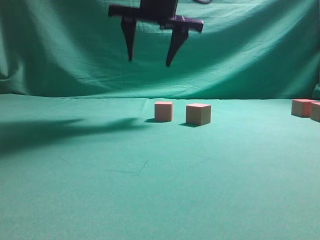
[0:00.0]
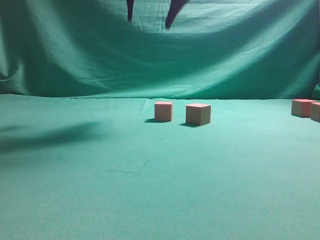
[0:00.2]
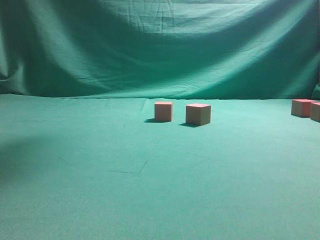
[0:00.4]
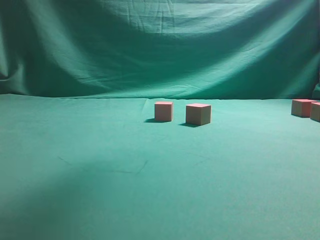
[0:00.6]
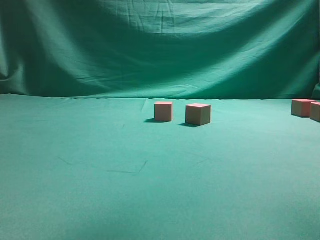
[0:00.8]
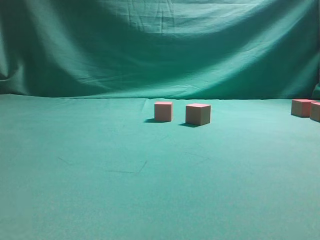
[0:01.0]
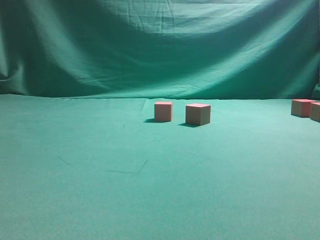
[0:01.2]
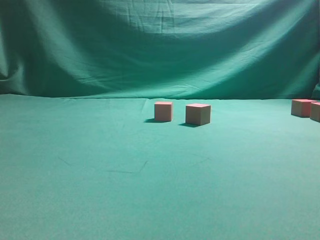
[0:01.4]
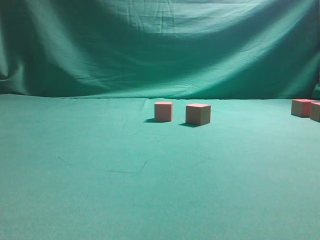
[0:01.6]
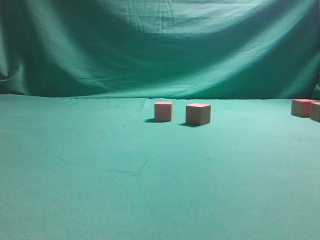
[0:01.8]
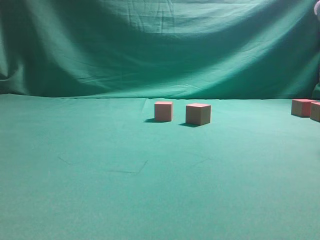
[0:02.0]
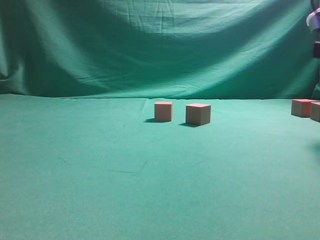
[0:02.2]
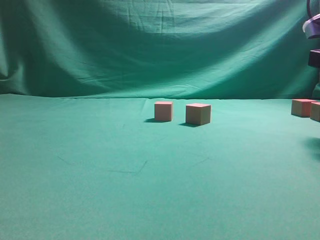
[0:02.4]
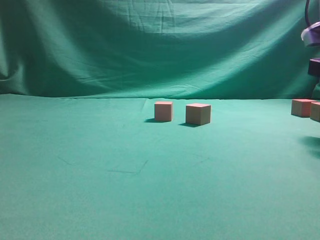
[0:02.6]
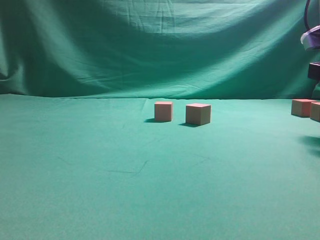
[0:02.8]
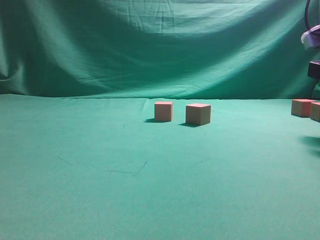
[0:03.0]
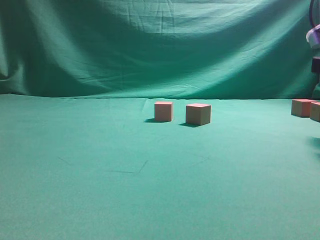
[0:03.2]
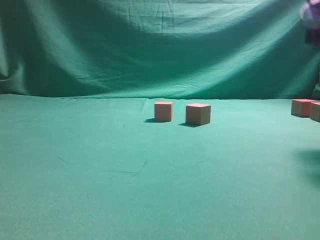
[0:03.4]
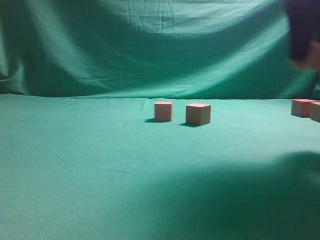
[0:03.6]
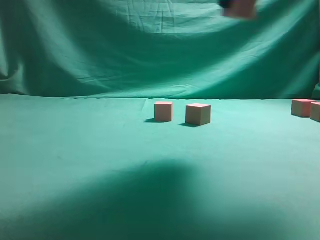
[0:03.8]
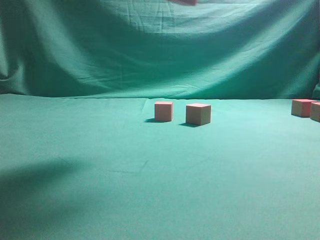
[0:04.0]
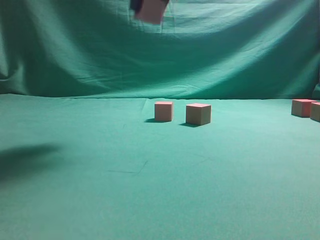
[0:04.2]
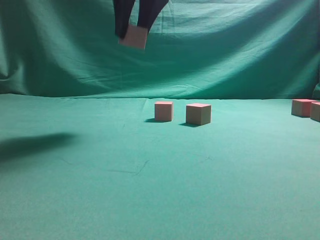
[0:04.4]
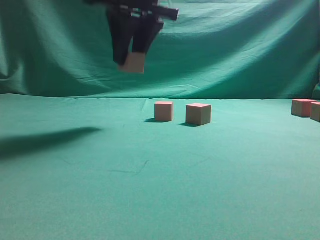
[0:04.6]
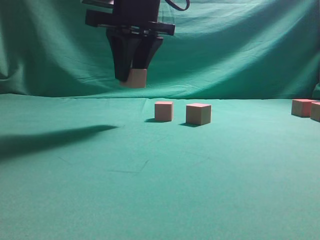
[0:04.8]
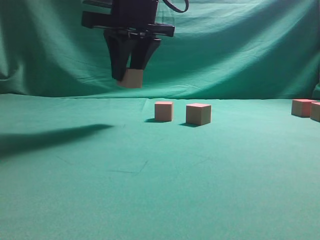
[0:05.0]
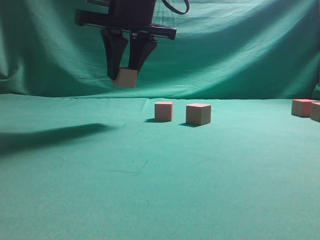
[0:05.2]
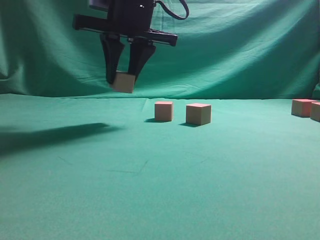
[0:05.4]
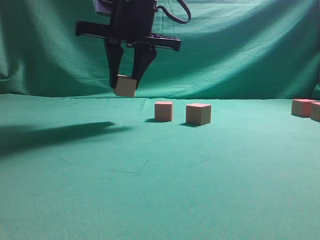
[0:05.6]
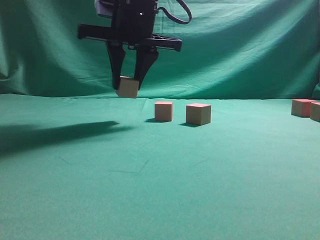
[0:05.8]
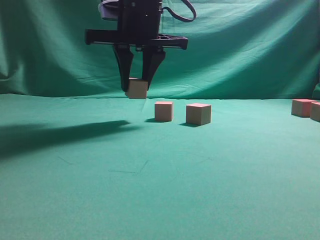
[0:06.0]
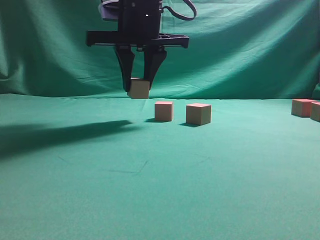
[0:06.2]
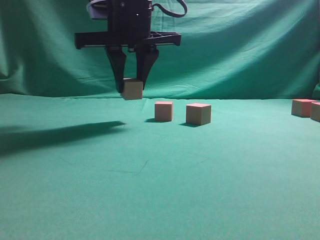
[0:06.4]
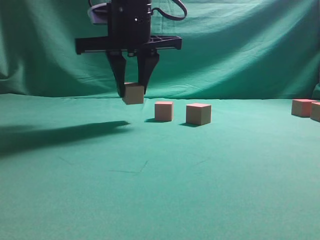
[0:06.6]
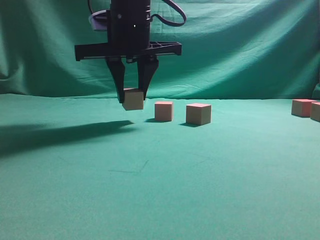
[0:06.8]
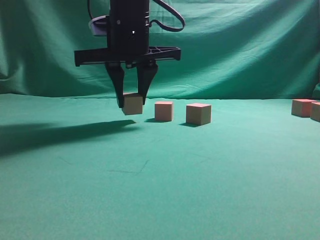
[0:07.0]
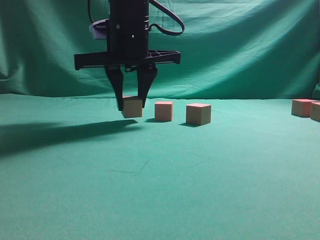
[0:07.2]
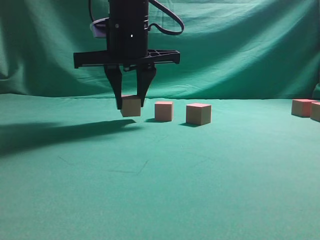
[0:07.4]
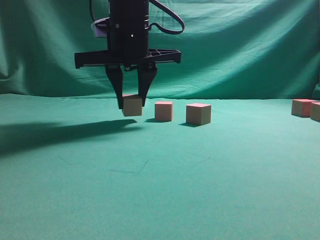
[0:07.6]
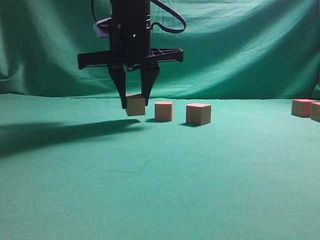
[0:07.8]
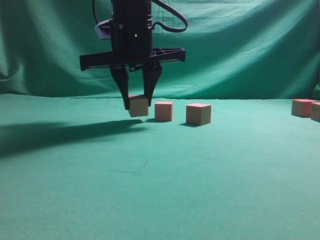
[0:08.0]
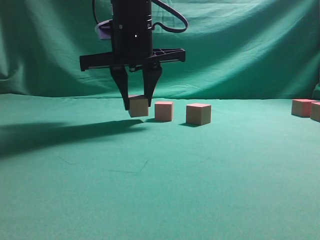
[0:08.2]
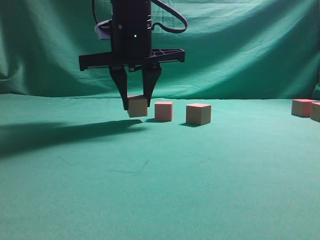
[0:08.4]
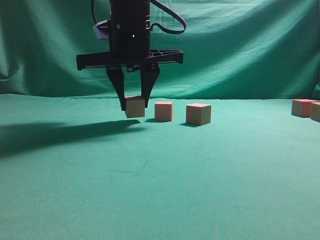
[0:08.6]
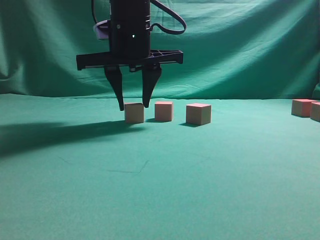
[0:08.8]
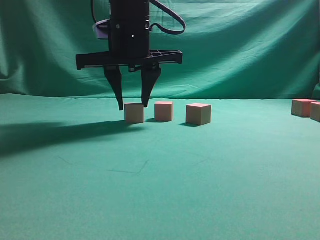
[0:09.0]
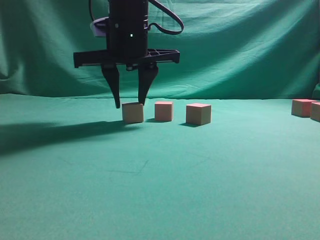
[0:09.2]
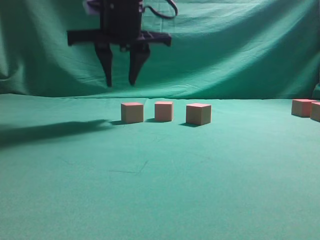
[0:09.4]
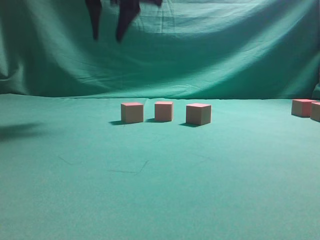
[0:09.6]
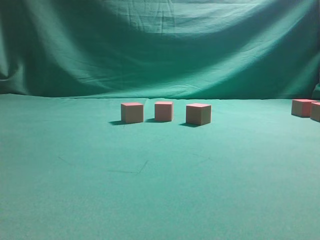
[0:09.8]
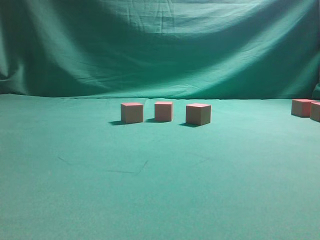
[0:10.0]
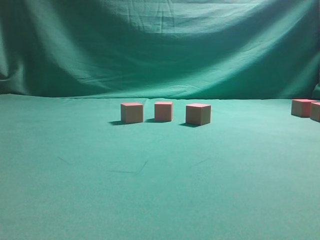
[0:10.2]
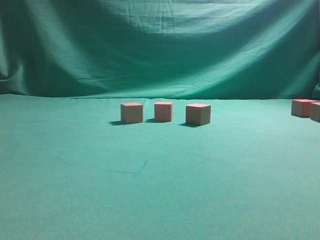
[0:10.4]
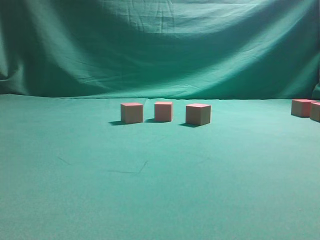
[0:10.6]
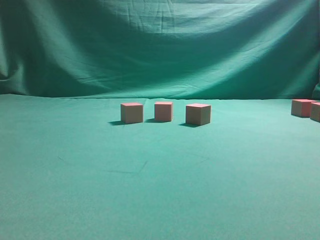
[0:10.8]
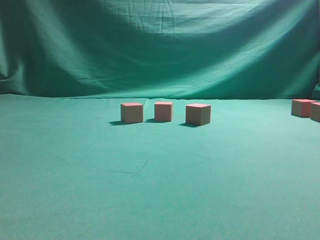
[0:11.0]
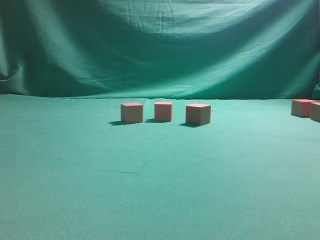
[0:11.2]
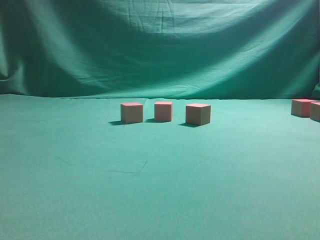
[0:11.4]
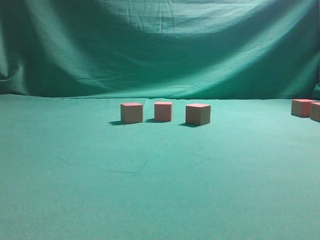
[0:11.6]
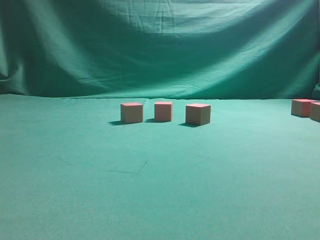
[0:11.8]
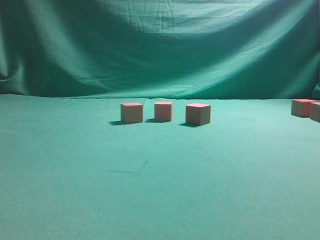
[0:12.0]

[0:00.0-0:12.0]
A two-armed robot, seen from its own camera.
Task of the whole recording: pick up the multiple cubes in two columns one by one and place them in another position on the table.
Step, 0:00.0 to 0:03.4: Pick up the block on the table.
Step, 0:03.6 to 0:09.2: Place the block at the correct position to assemble the letter S.
0:00.0 to 0:01.6: The right gripper is displaced to the right and backward by some 30 cm.
0:01.6 to 0:03.0: The right gripper shifts approximately 10 cm downward and forward, and closes its fingers.
0:03.0 to 0:04.4: The right gripper travels to the left and upward by about 30 cm.
0:04.4 to 0:06.0: The right gripper moves downward, some 10 cm.
0:06.0 to 0:07.6: The grippers stay close to where they were, moving slightly.
0:07.6 to 0:09.0: Both grippers stay about where they are.
0:09.0 to 0:10.4: The right gripper heads upward, covering some 35 cm.

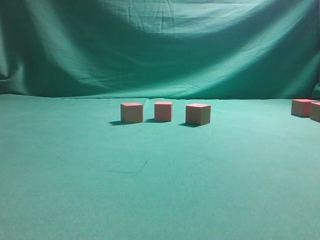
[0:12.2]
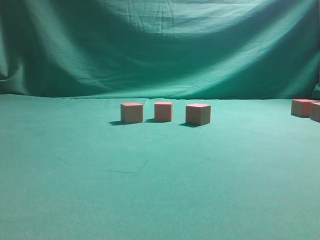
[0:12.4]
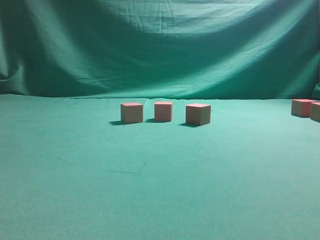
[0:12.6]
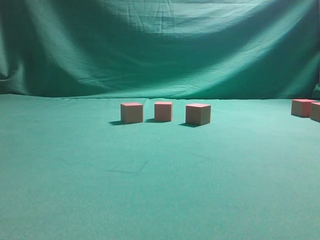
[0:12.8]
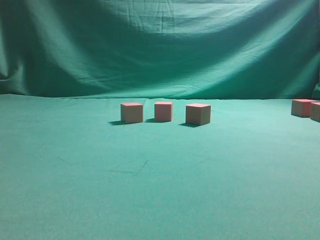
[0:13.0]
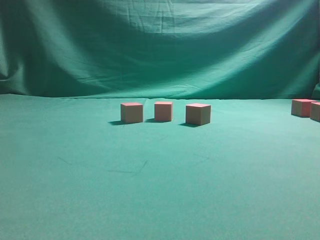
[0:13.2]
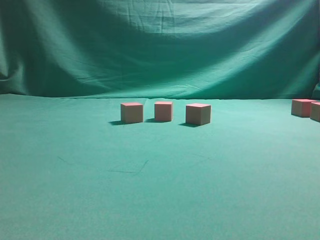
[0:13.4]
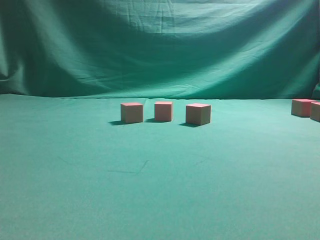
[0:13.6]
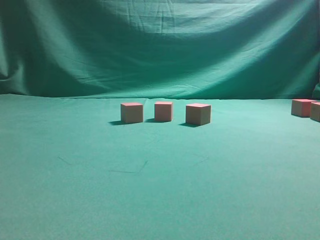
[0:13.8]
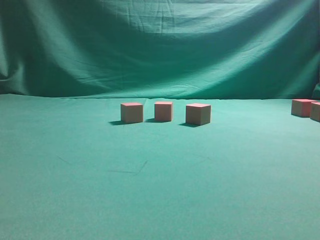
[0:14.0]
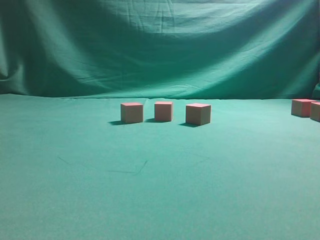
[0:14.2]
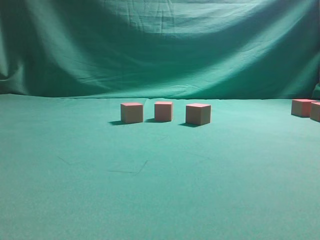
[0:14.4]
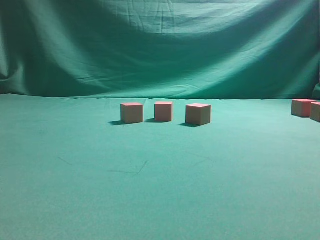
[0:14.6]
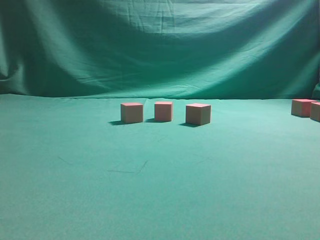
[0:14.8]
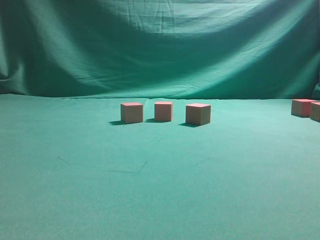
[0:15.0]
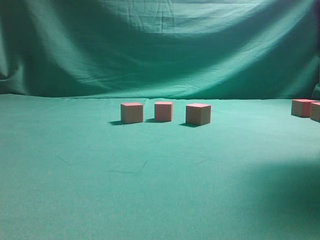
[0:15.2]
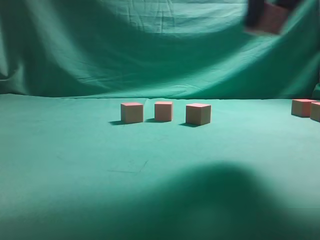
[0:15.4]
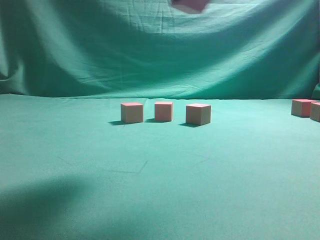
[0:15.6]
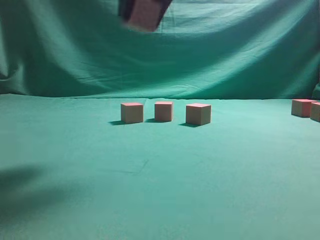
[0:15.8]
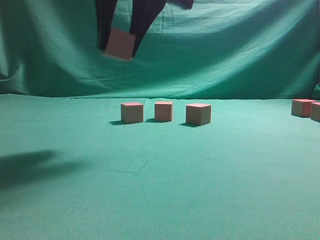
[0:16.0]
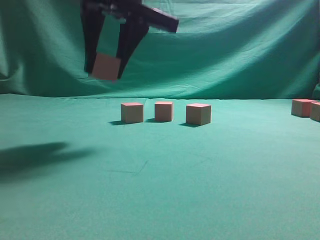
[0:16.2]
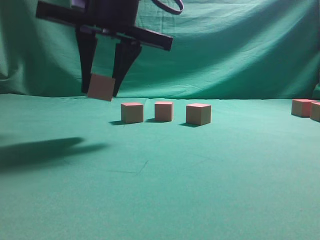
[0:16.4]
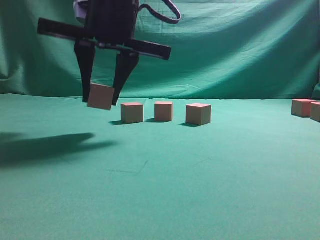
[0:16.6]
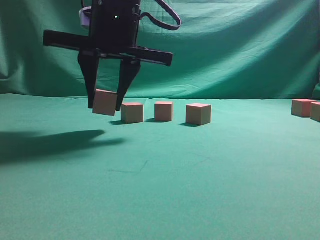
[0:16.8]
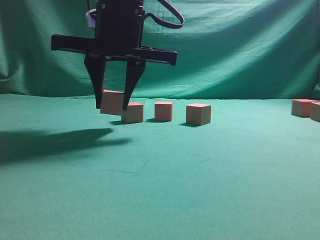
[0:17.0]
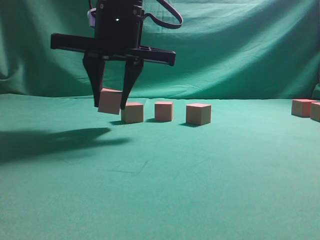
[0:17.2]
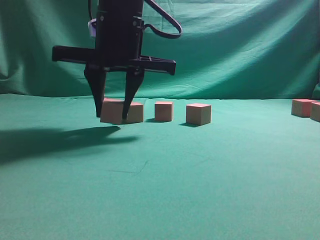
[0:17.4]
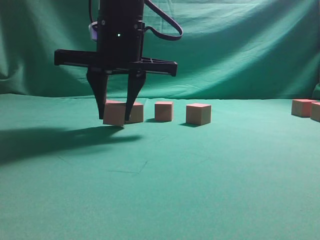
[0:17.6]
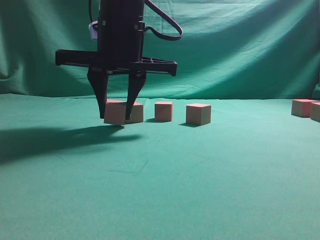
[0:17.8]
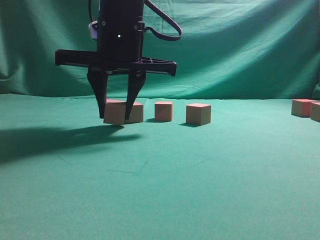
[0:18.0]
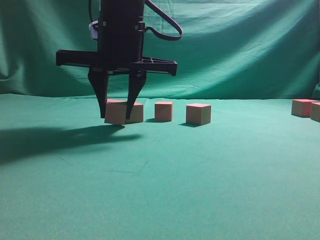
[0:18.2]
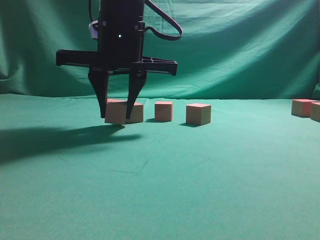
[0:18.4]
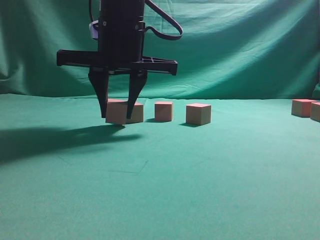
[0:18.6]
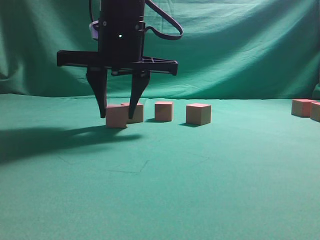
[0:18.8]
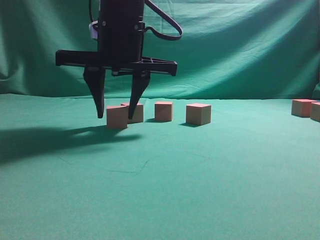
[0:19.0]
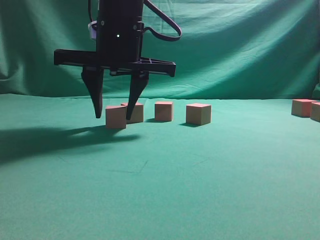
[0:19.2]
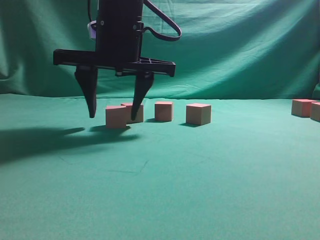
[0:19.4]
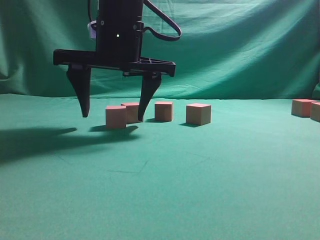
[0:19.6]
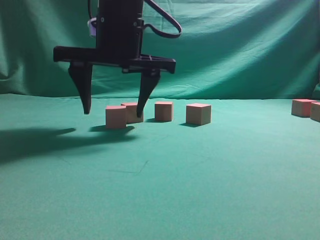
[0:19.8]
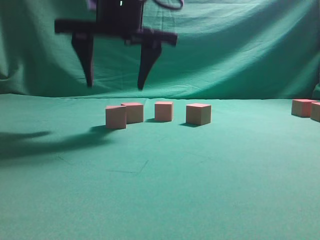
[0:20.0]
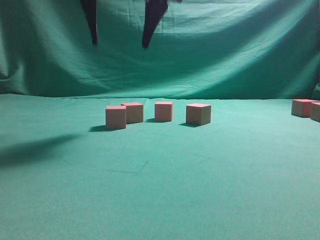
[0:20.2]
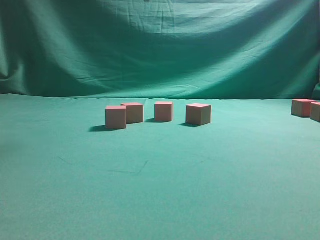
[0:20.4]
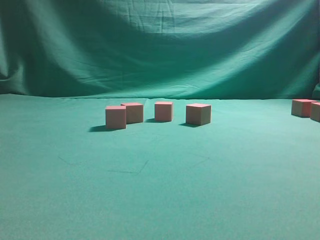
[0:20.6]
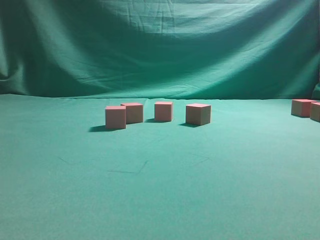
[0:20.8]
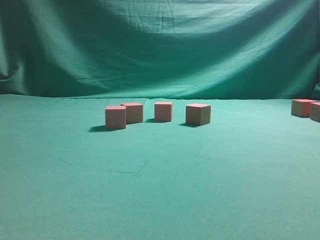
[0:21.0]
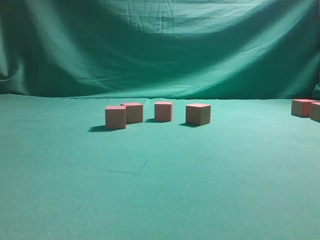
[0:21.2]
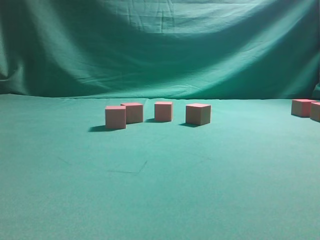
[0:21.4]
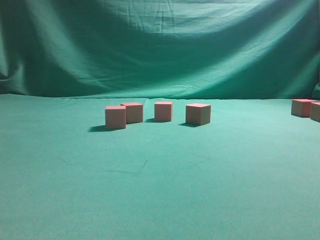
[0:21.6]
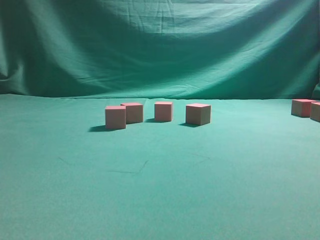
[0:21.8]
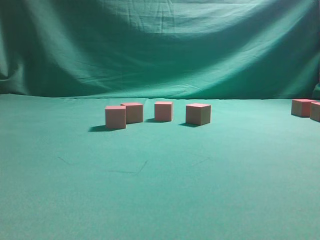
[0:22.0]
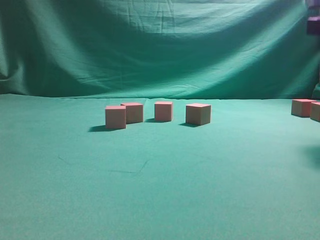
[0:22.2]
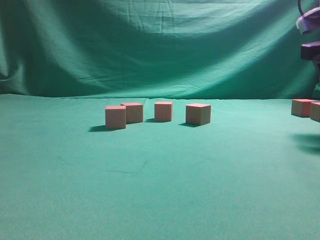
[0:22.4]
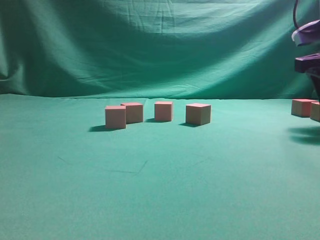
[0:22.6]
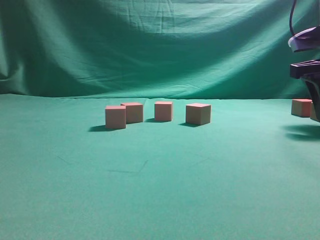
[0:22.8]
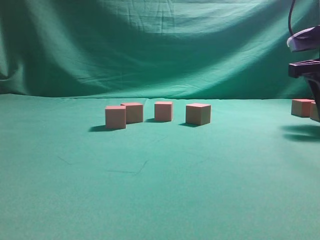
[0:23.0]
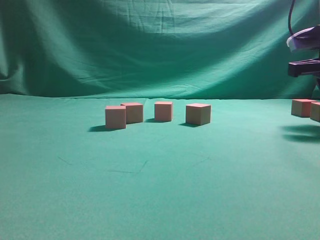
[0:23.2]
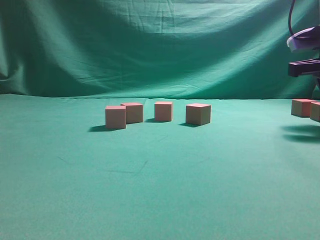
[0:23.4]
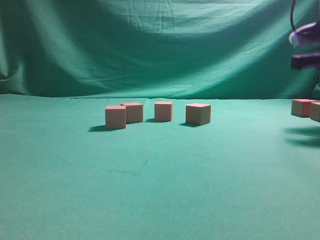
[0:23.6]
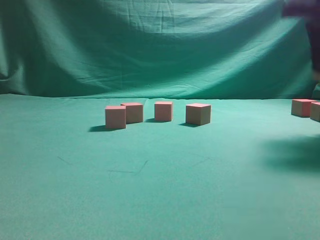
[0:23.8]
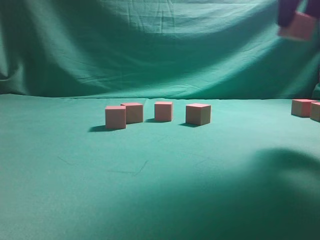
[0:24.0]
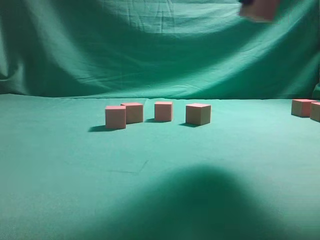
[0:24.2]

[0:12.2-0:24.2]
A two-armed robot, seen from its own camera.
Task of the whole recording: pick up the multiple cubes in two columns one by one and place them in another position on the table.
Step, 0:12.2 to 0:15.2: Pick up the block on the table.
Step, 0:15.4 to 0:19.8: Place the block at the correct position to assemble the letter S.
Step, 0:20.2 to 0:23.6: Pick up the block on the table.
0:13.8 to 0:15.2: The right gripper travels to the left by approximately 10 cm, and closes up.
0:15.2 to 0:16.6: The right gripper heads to the left, covering about 30 cm.
0:16.6 to 0:18.2: The grippers move only a little.
0:18.2 to 0:19.8: The right gripper opens its fingers.
0:19.8 to 0:21.2: The right gripper heads upward, to the right and backward, covering some 35 cm.
0:21.2 to 0:22.6: The right gripper heads downward, forward and to the right, covering about 30 cm.
0:22.6 to 0:24.2: The right gripper shifts approximately 20 cm upward, to the left and backward, and closes up.
